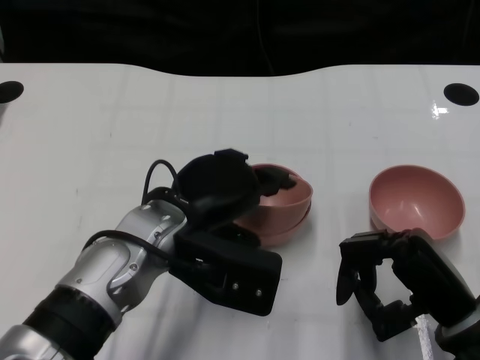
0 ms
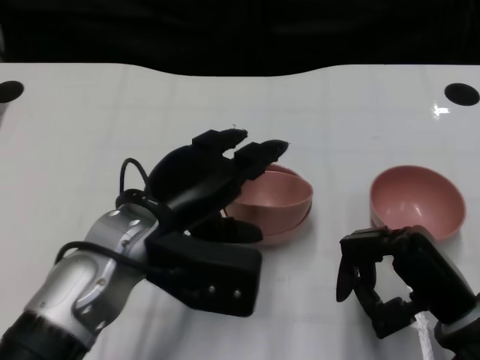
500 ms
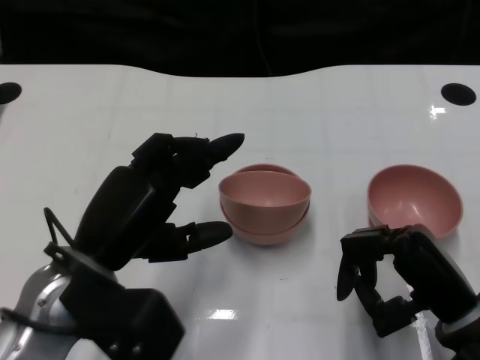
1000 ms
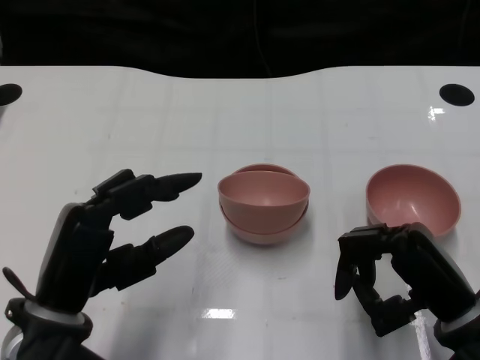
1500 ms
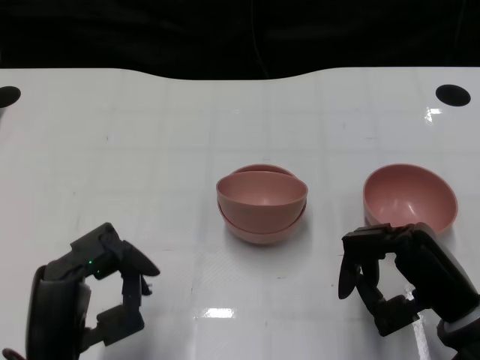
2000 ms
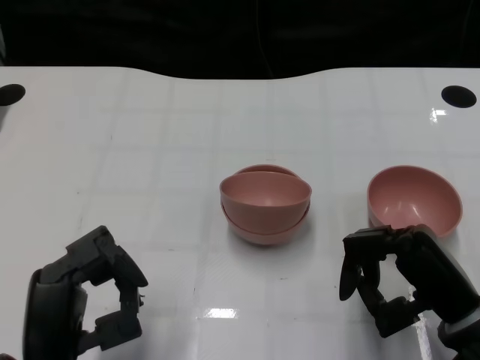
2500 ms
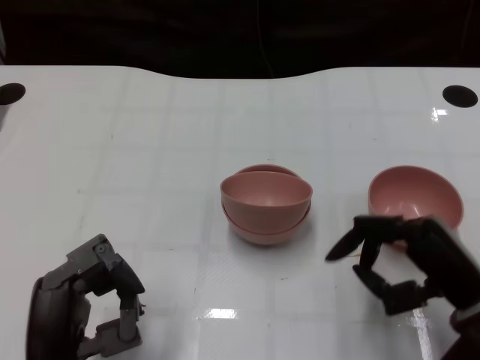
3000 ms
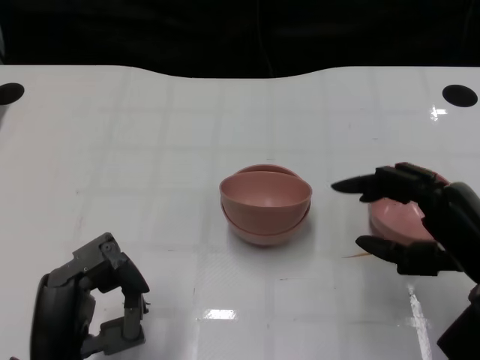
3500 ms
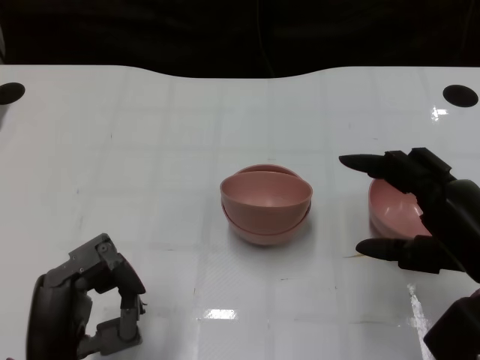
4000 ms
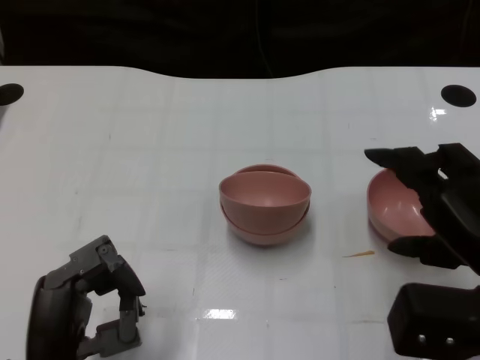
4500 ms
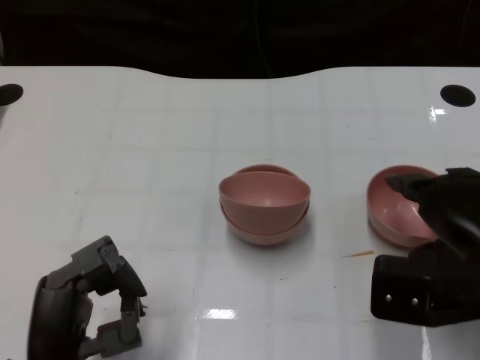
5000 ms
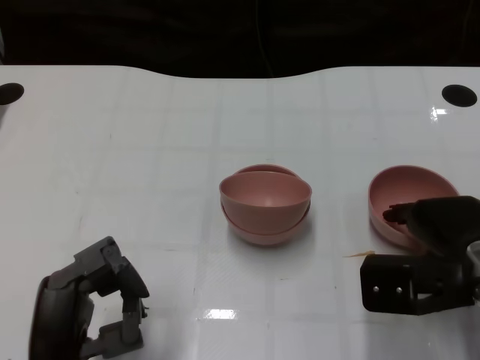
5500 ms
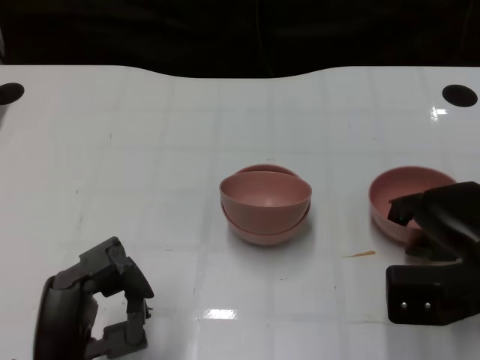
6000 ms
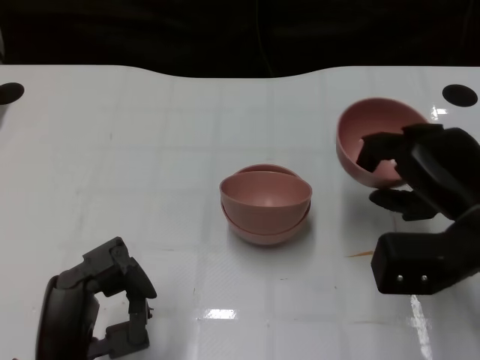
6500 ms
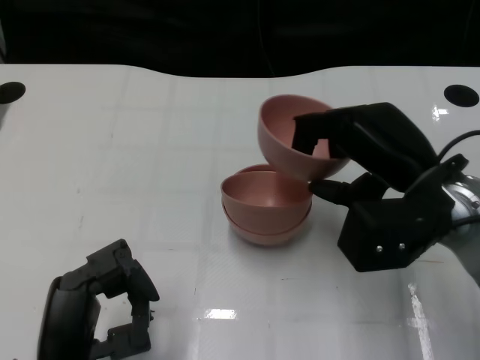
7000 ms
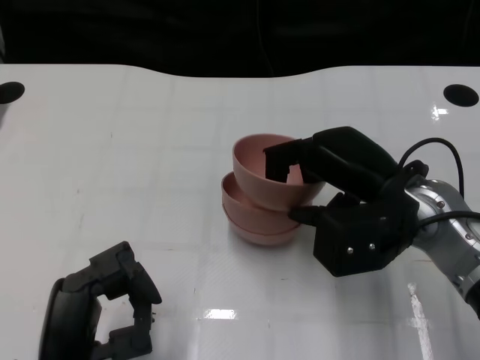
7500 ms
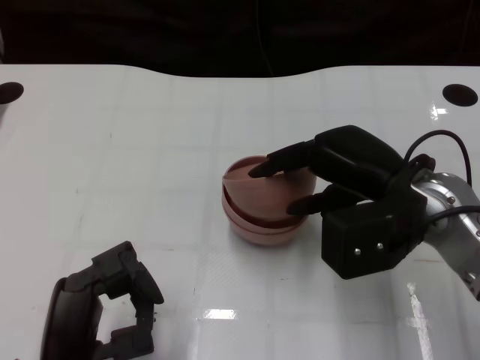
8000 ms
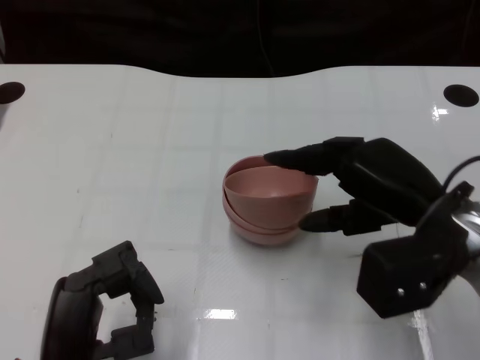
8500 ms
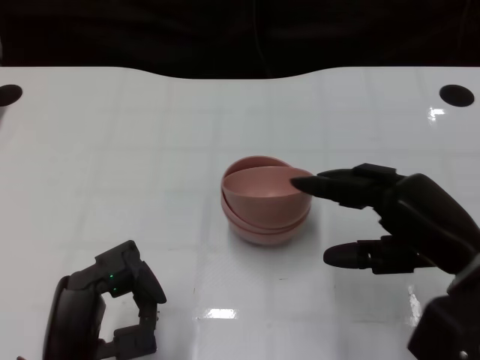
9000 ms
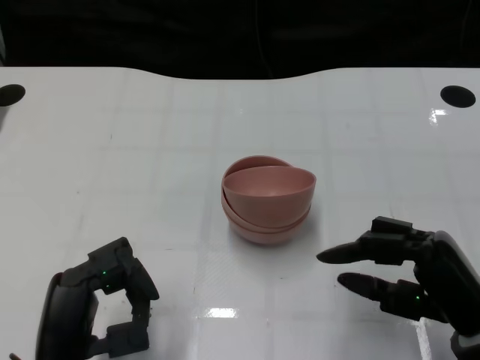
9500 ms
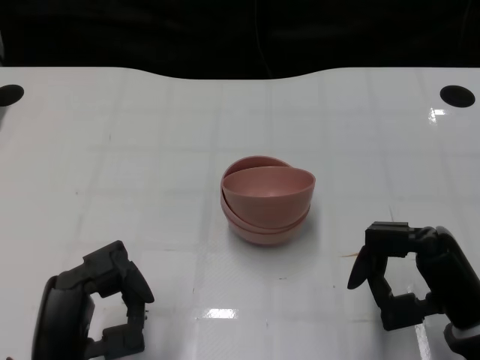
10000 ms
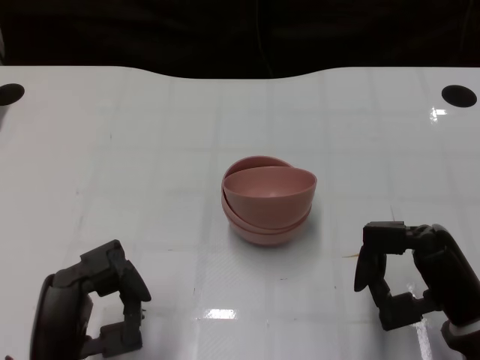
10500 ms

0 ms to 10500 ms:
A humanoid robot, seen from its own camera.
Task of the whole recording: Pick up the bowl on one side of the table and place it on top of the middle bowl, then pick up the bowl on the other side of the table and place it on top of the middle bowls.
Step, 1000 ms to 6000 ms: Grasp the bowl on the right with the right gripper.
Step, 6500 ms to 8500 ms: Place the bowl on the right onto the bowl in the middle with right gripper.
0 ms to 2000 ms: The left hand shifts about 15 cm backward, to the left and downward.
2000 ms to 4000 ms: The right hand travels upward by about 5 cm.
4000 ms to 6500 ms: The right hand goes roughly 5 cm forward.
8500 ms to 10500 ms: The right hand is displaced downward and backward by about 10 cm.

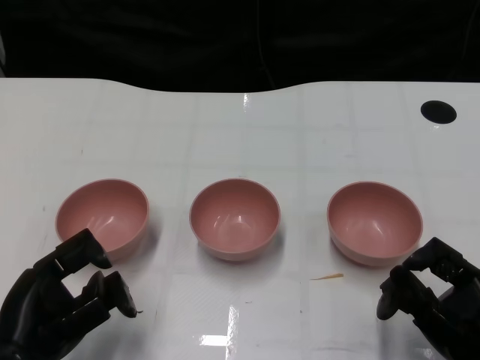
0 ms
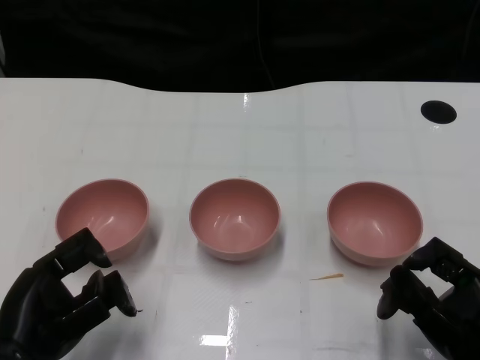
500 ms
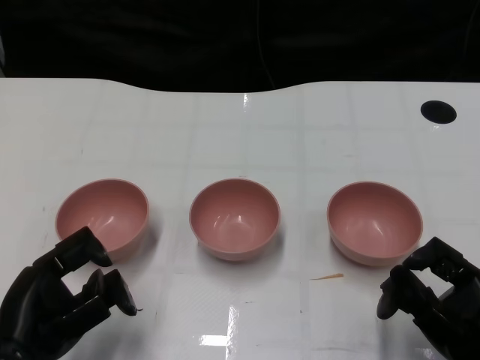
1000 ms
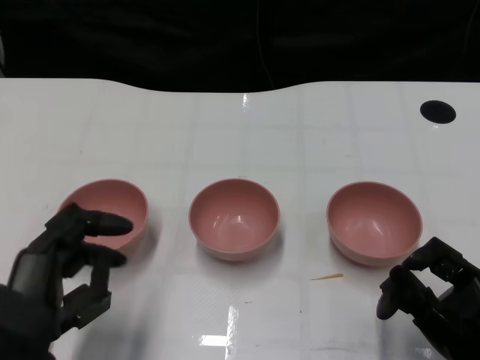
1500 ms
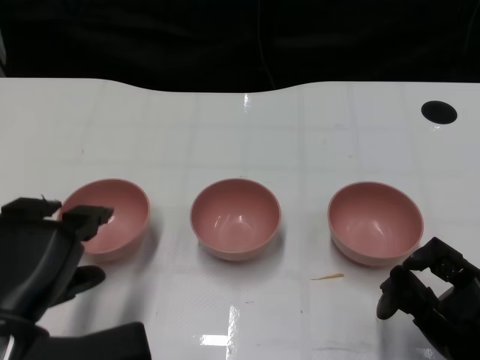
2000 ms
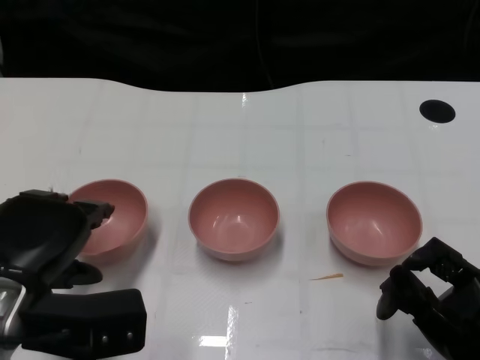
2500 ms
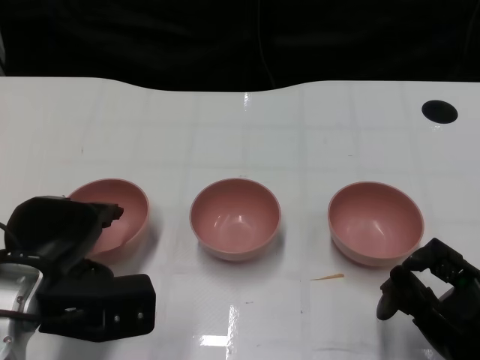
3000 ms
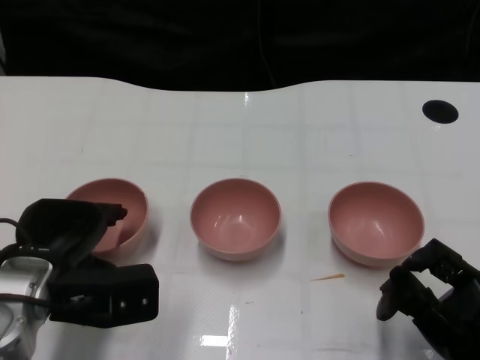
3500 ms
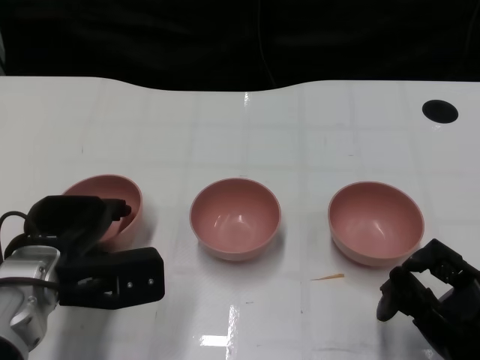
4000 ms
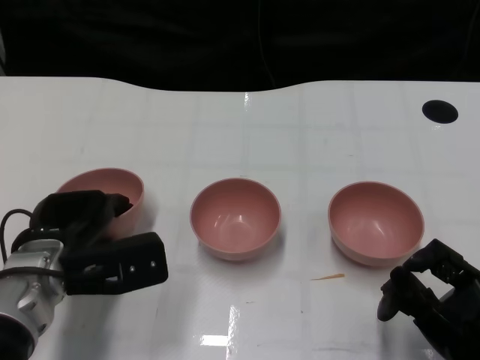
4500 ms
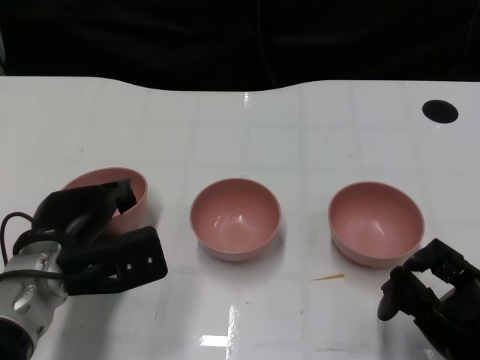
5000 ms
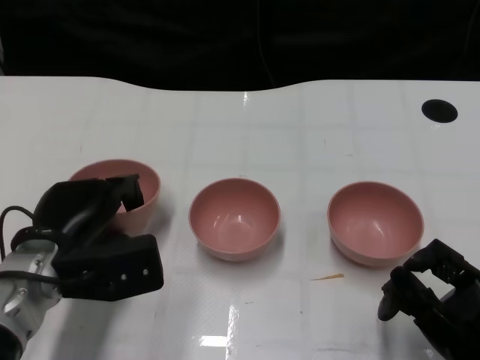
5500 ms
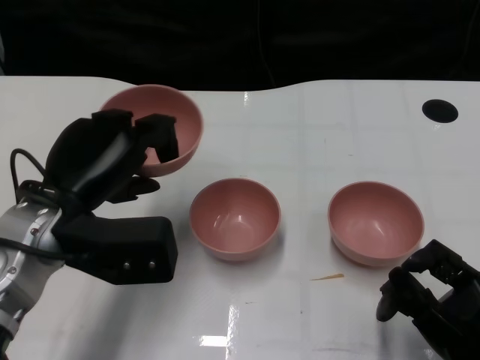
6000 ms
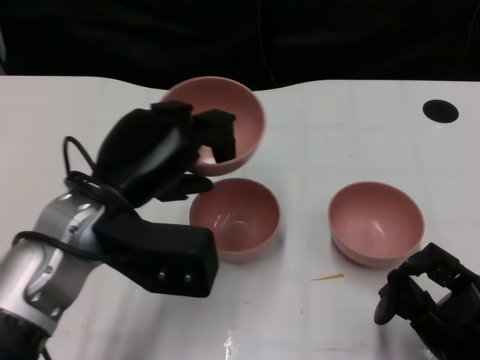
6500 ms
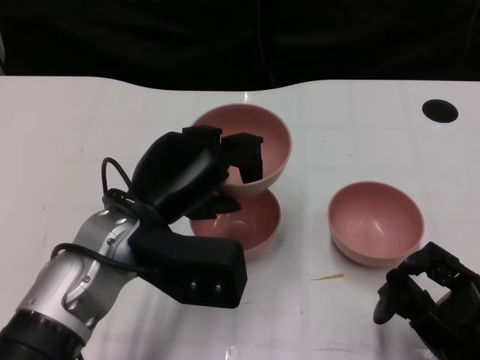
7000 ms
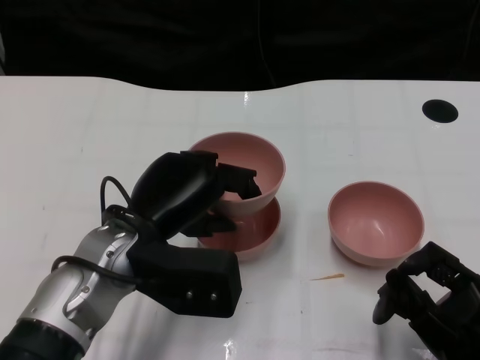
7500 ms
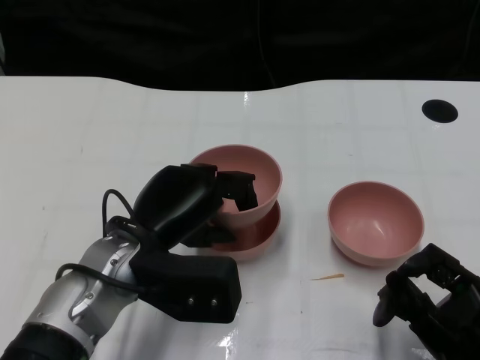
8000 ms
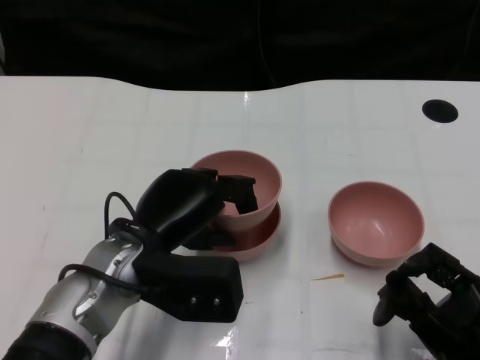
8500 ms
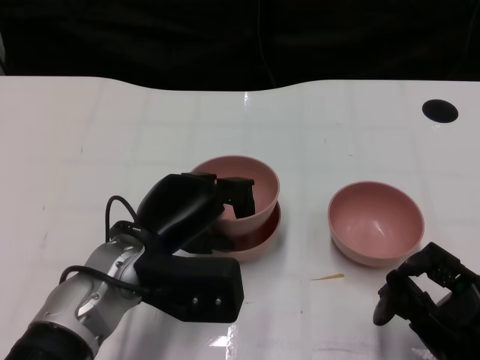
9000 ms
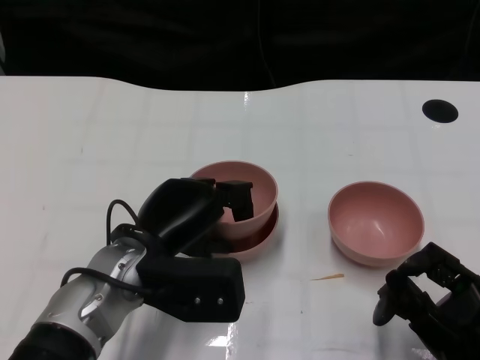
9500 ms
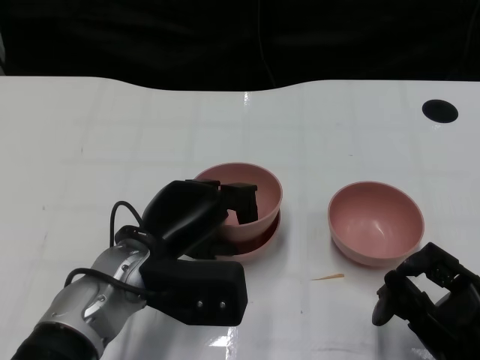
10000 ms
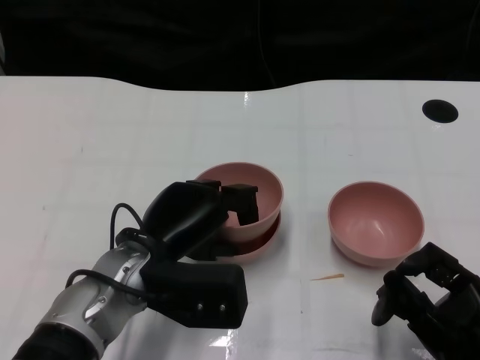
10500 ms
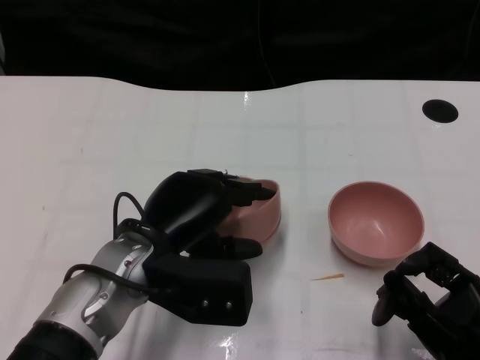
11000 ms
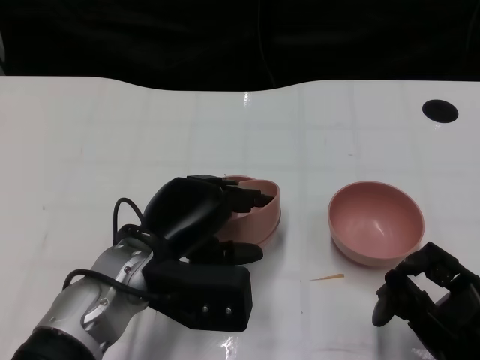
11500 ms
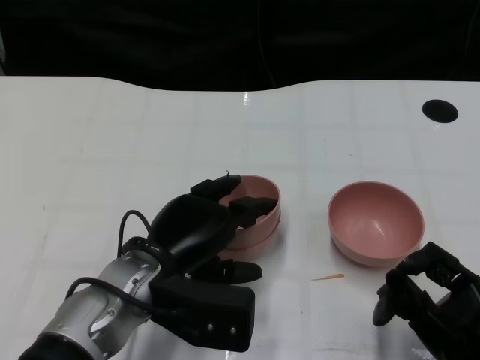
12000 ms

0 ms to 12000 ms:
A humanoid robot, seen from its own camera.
Task of the whole recording: Pick up the bowl on one side of the table and place it on top of the middle bowl, then pick up the bowl on the other side of the table and place it on top of the middle bowls.
Step, 1500 ms to 5000 ms: Grasp the bowl on the left with the left gripper.
2000 ms to 4000 ms: The left hand travels forward by some 10 cm.
4000 ms to 6000 ms: The left hand moves upward, some 5 cm.
6000 ms to 8000 ms: The left hand shifts approximately 5 cm to the right.
8000 ms to 12000 ms: The hands make only small movements.

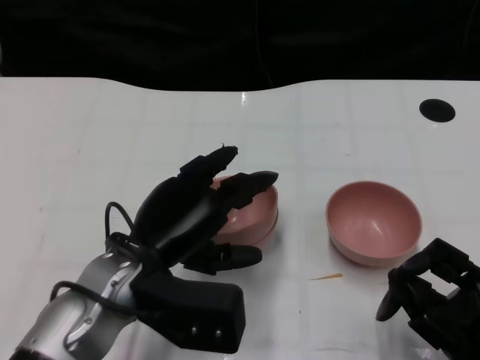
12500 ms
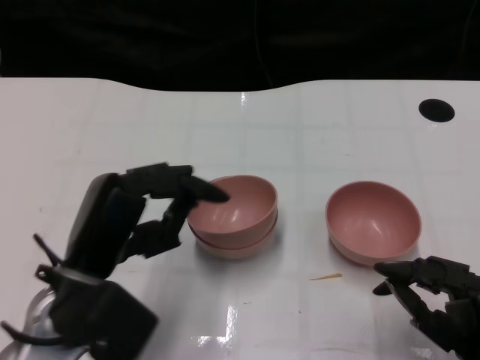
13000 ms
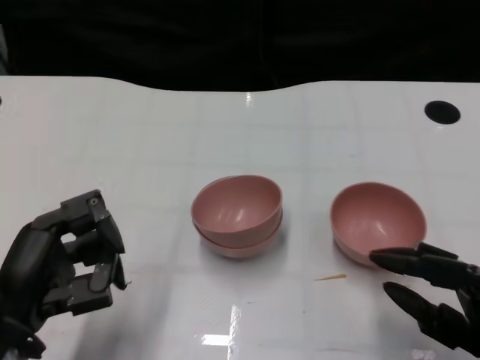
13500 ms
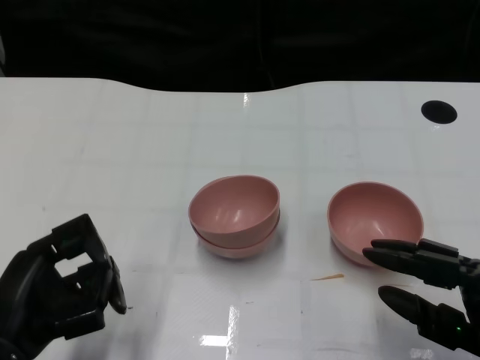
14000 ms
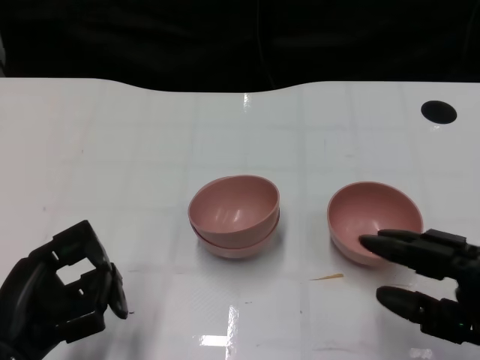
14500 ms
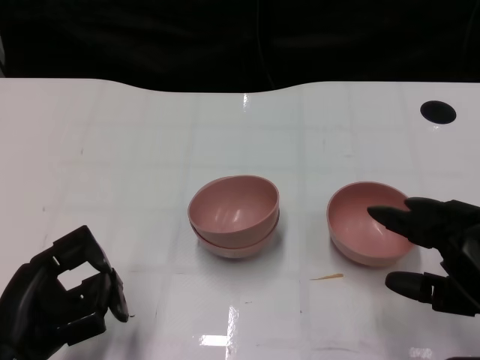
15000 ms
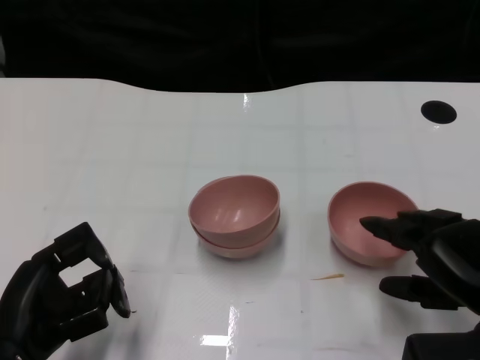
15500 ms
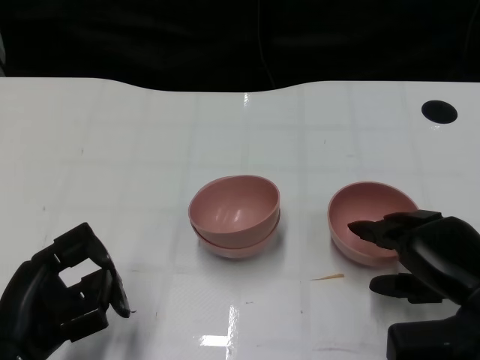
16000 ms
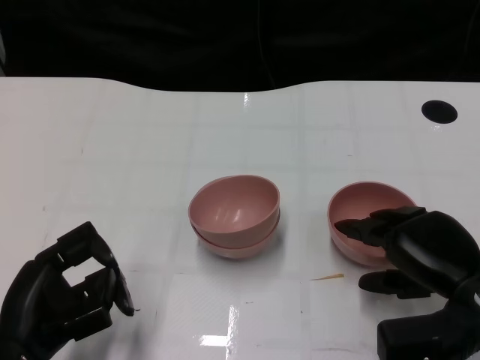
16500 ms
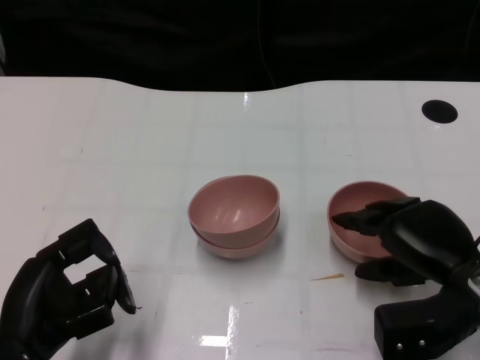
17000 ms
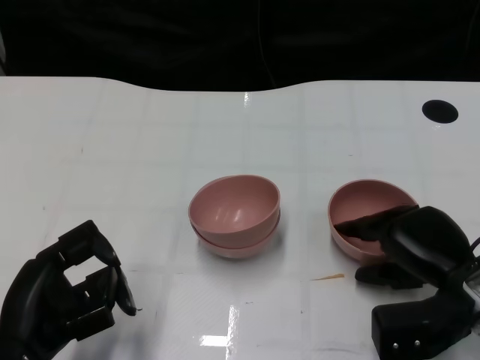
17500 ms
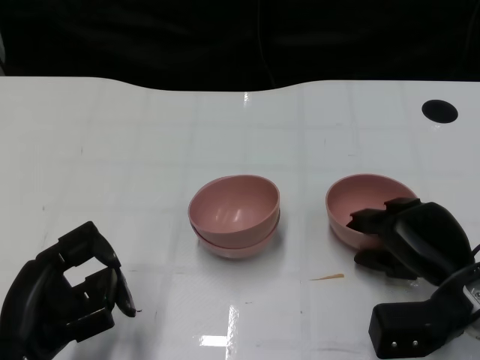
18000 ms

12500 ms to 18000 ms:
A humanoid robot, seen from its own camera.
Task of the whole recording: Pick up the bowl on one side of the table and place it on top of the middle bowl, then pick up the bowl on the other side of the table and place it on top of the middle bowls.
12500 ms to 14500 ms: The left hand shifts about 15 cm to the left and backward.
14500 ms to 16000 ms: The right hand shifts approximately 5 cm forward.
16000 ms to 18000 ms: The hands make only small movements.
